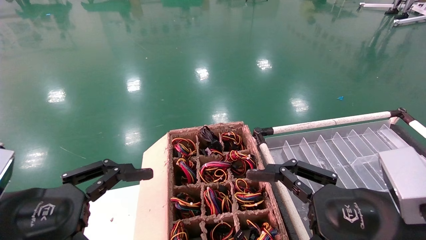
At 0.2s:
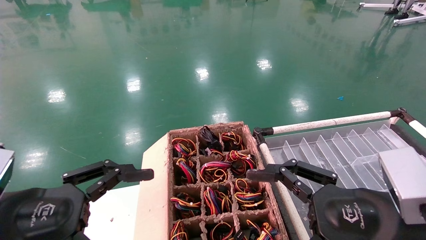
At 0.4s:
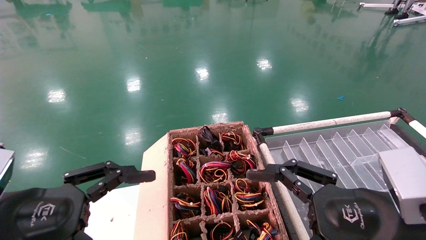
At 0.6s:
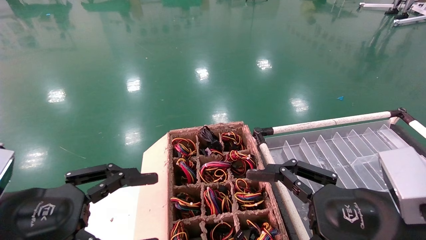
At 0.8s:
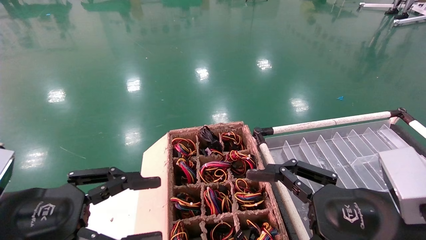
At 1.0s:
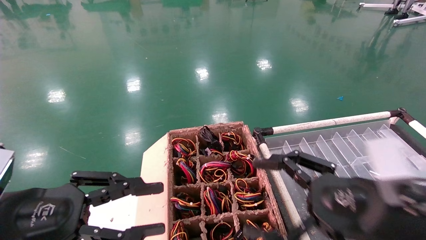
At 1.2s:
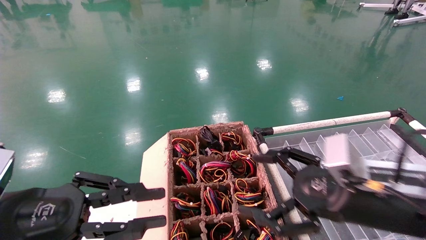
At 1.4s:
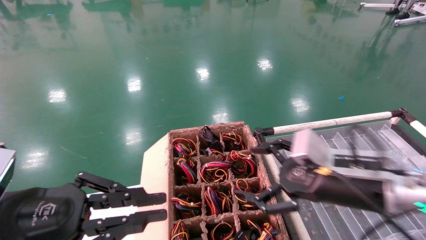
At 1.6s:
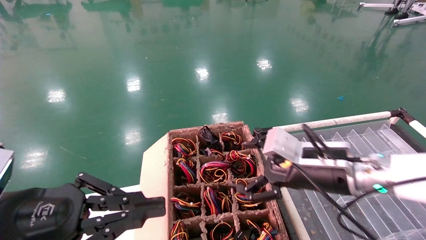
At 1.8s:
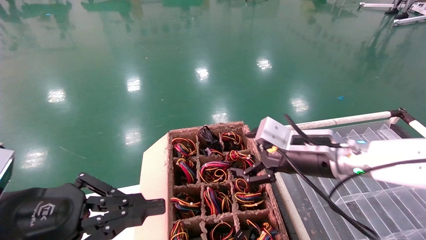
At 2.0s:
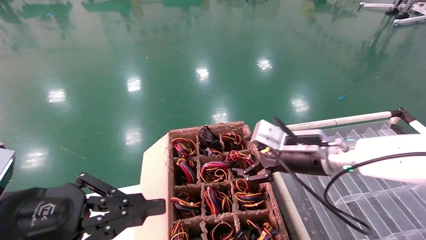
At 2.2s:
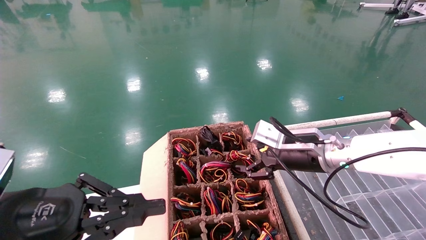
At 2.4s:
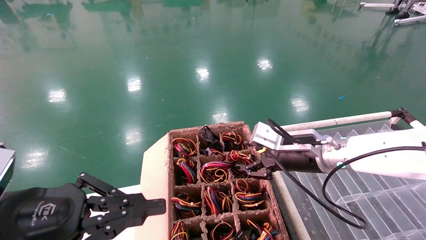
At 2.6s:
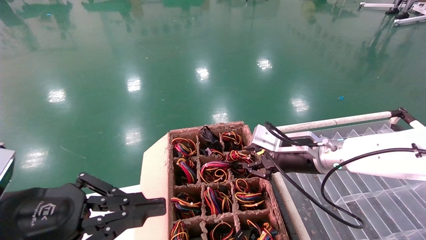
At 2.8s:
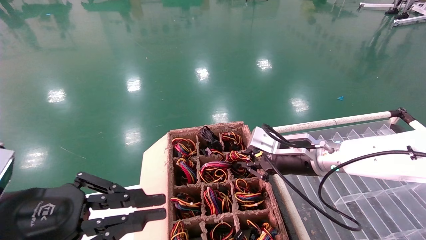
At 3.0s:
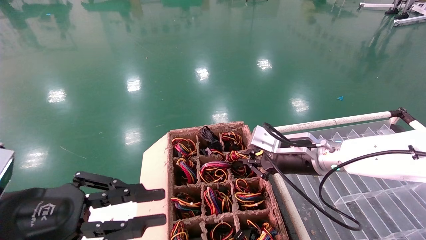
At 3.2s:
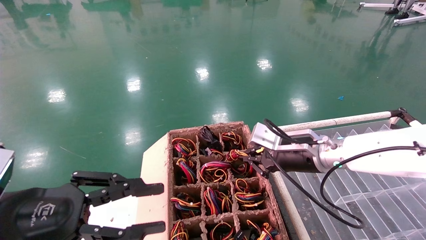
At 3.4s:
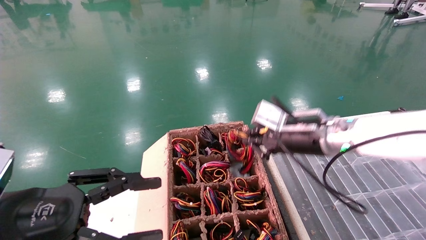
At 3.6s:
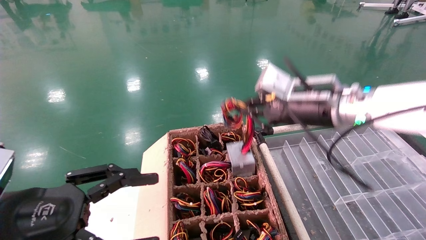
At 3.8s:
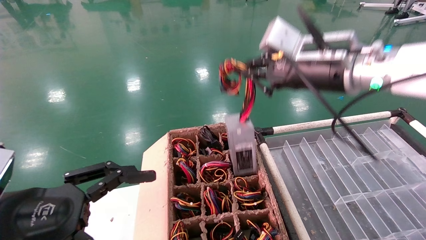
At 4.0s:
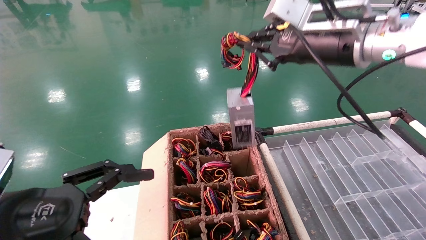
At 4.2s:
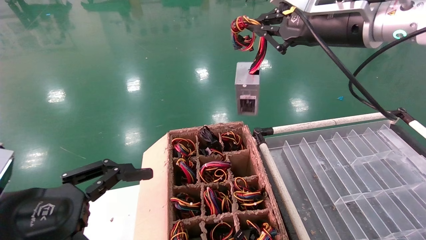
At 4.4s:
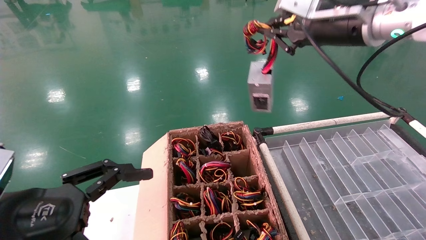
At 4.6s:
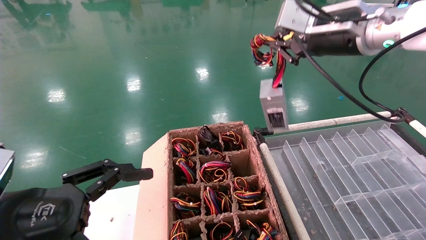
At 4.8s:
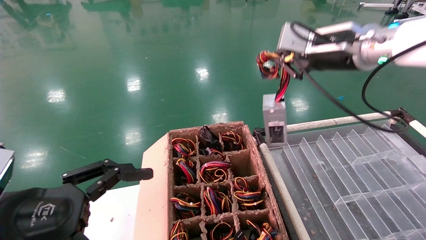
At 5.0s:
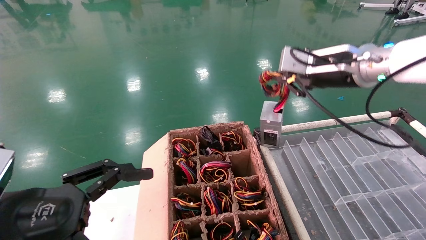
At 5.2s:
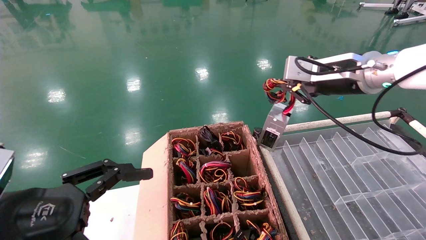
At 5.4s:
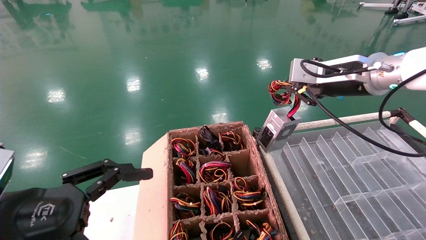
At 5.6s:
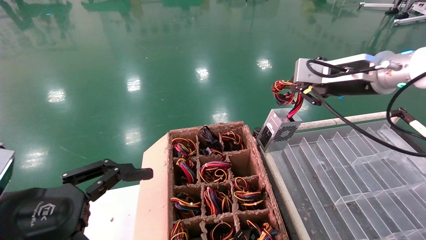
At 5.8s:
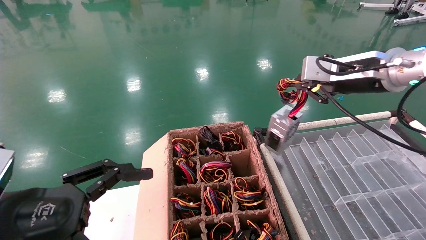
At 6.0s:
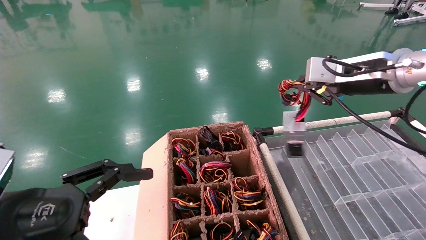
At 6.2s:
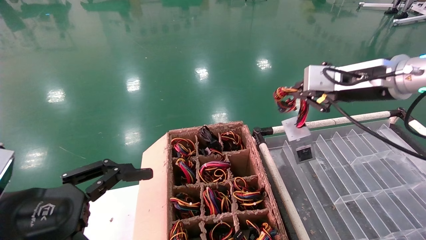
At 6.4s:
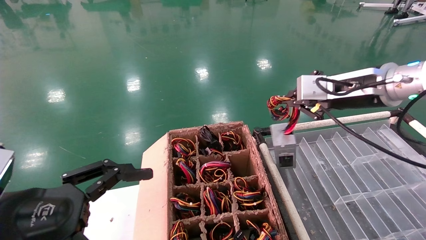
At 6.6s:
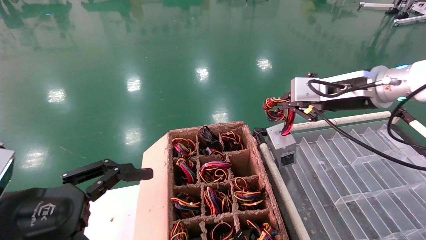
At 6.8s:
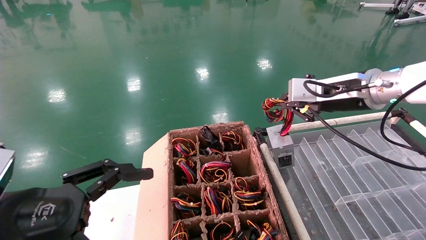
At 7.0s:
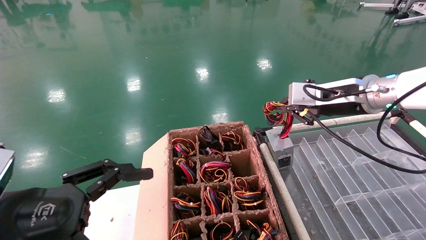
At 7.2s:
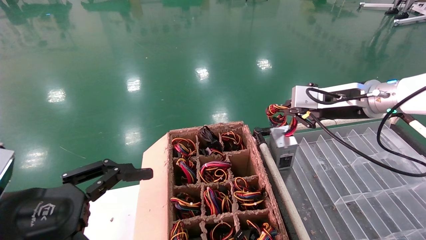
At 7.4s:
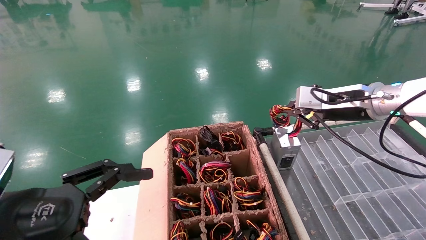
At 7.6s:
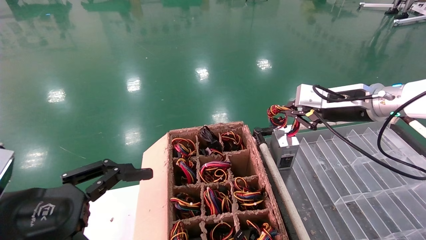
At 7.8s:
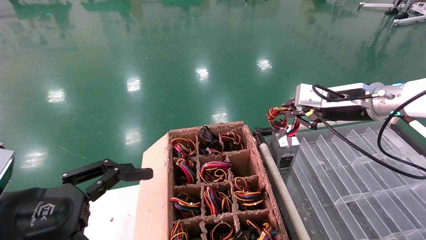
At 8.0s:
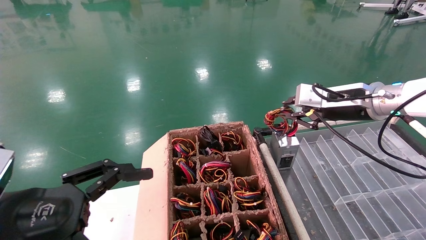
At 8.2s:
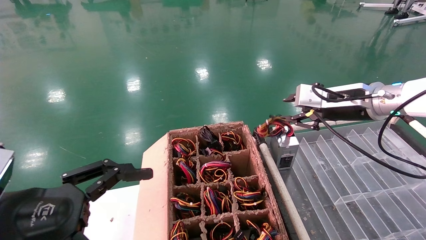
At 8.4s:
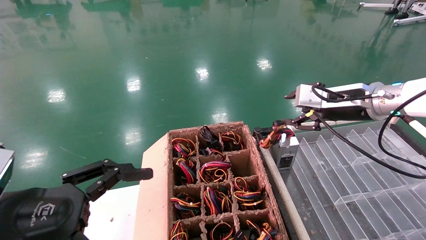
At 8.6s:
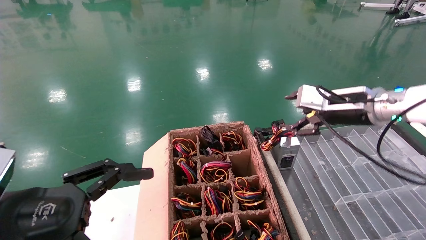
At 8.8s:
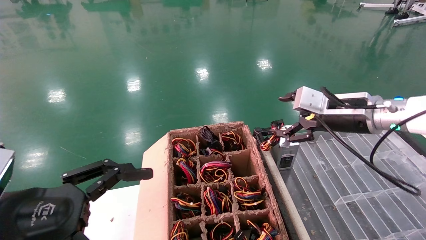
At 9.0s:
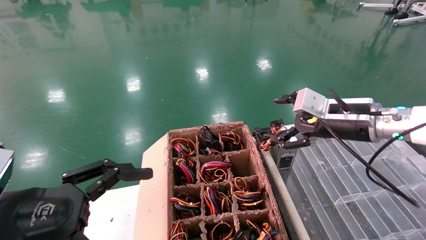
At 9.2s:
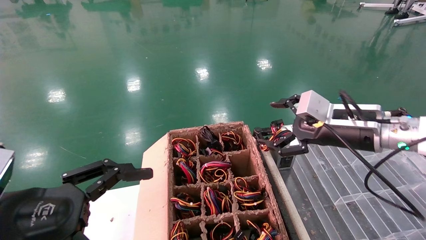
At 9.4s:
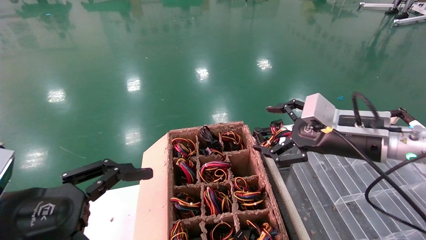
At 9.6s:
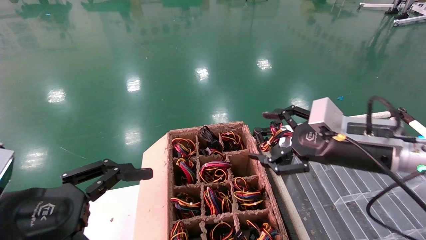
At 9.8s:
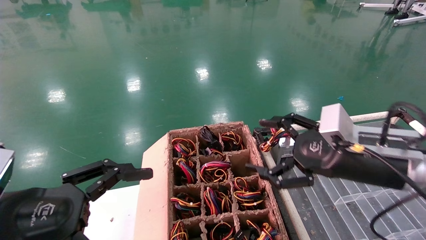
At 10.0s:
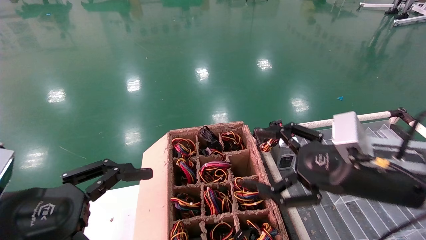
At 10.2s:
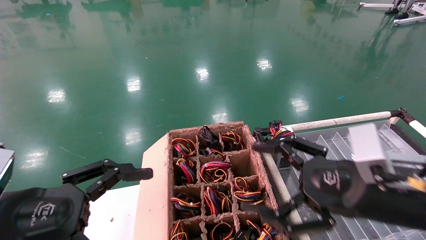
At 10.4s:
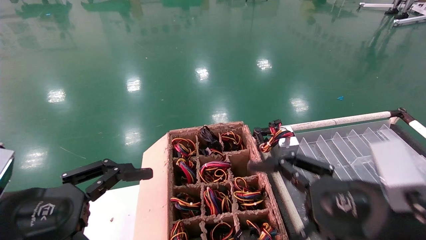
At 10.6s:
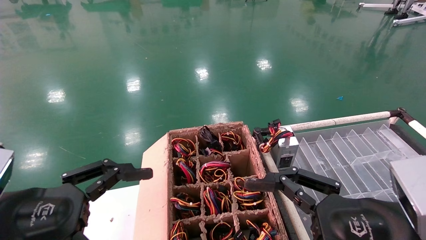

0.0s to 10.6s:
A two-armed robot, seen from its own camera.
Step, 1.0s to 3.6s: Grab and lift the power supply from the large box.
Step, 3.8s to 8.0s: Place the power supply on the operating table.
0.0s to 1.6s: The right gripper goes approximately 15 cm forward; the left gripper closes up.
1.6s to 3.0s: The right gripper moves forward, some 5 cm, and closes its fingers.
3.0s to 4.6s: The right gripper heads upward, covering some 20 cm. Meanwhile the left gripper opens its fingers.
4.6s to 6.0s: The right gripper moves to the right and downward, roughly 10 cm.
6.0s to 7.6s: The right gripper moves downward, approximately 5 cm.
7.6s to 9.0s: The right gripper opens its fingers.
9.0s to 10.6s: The right gripper shifts roughly 20 cm backward.

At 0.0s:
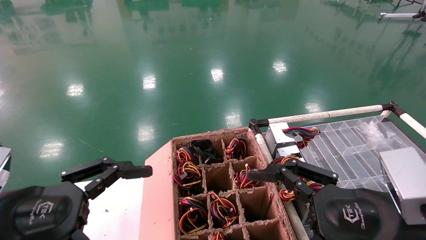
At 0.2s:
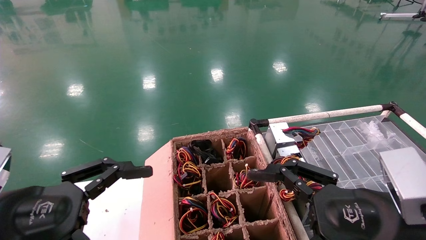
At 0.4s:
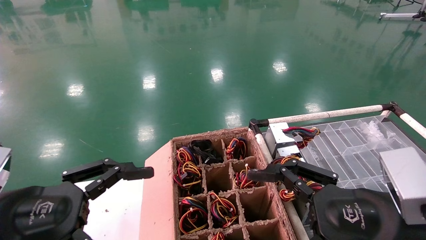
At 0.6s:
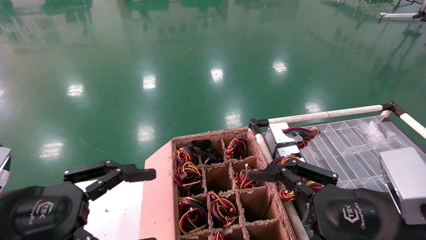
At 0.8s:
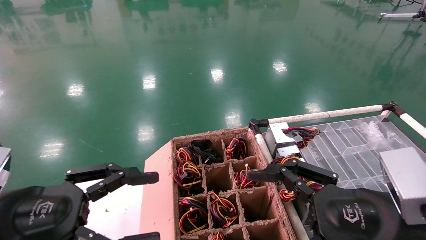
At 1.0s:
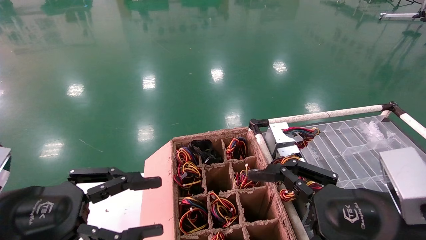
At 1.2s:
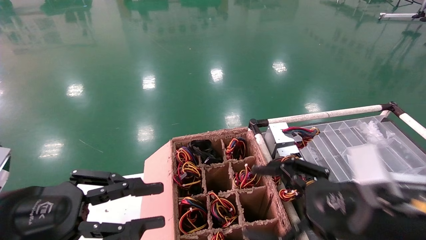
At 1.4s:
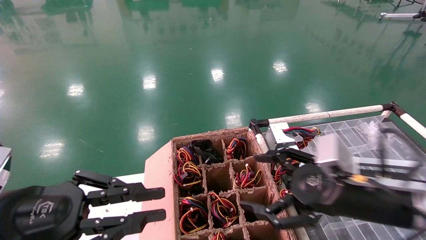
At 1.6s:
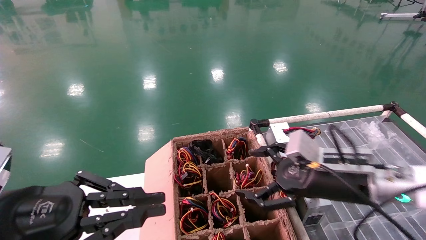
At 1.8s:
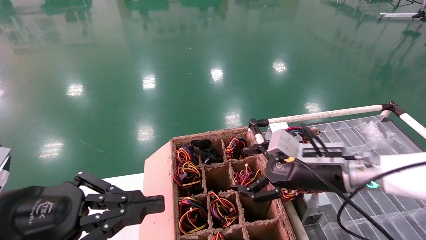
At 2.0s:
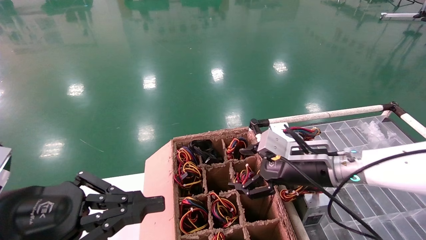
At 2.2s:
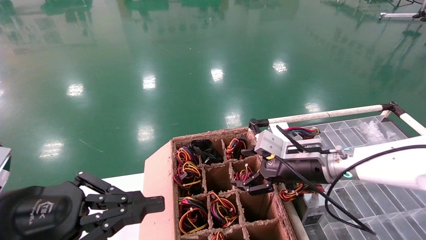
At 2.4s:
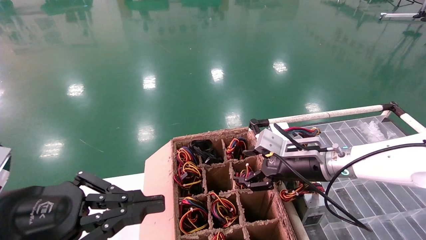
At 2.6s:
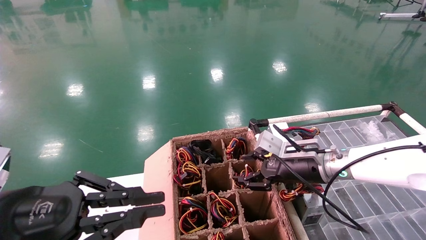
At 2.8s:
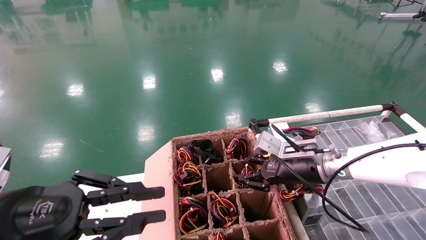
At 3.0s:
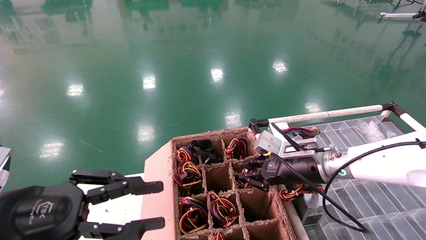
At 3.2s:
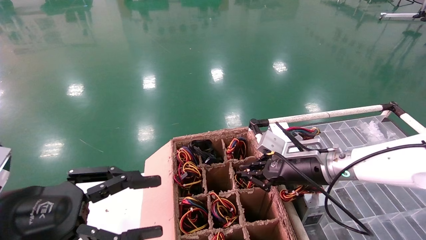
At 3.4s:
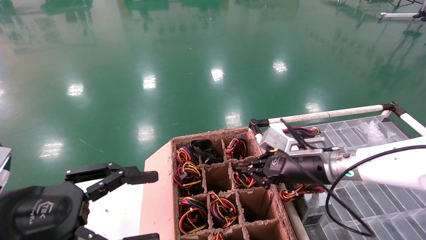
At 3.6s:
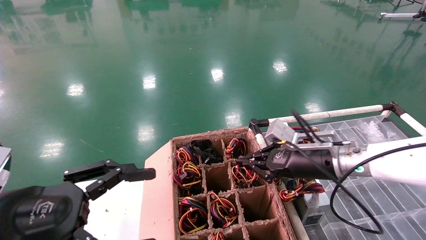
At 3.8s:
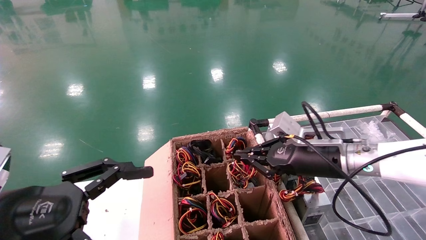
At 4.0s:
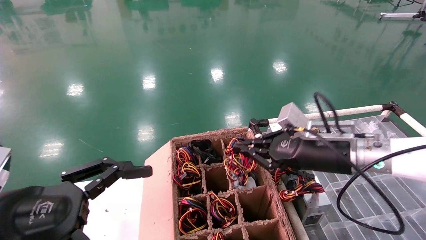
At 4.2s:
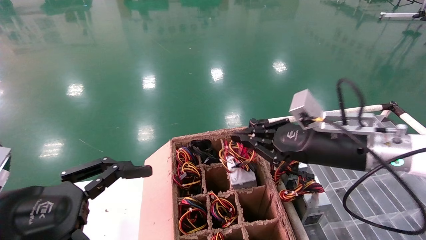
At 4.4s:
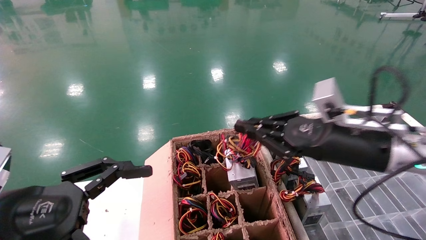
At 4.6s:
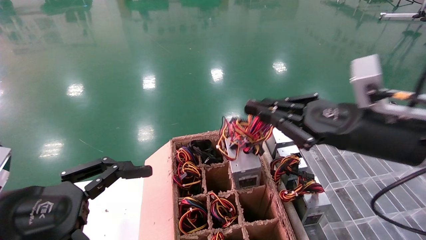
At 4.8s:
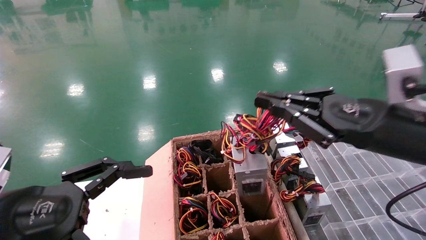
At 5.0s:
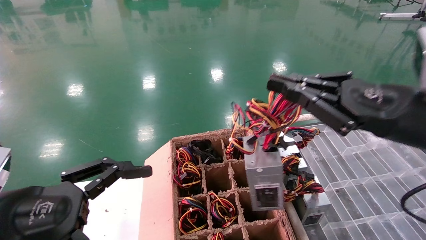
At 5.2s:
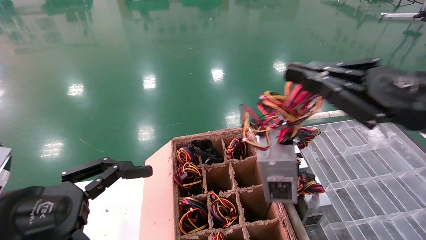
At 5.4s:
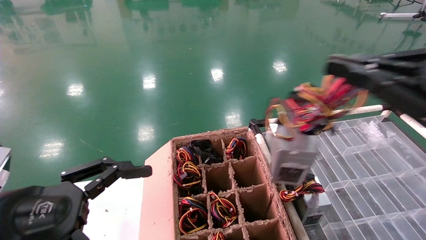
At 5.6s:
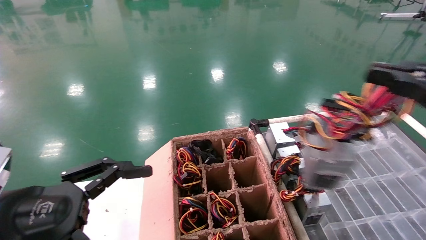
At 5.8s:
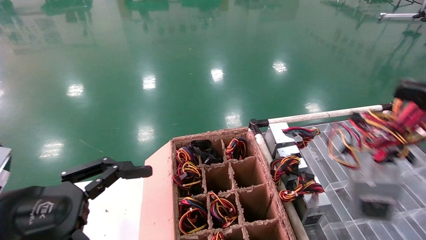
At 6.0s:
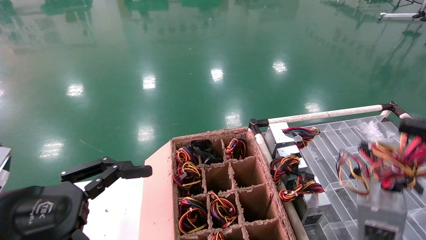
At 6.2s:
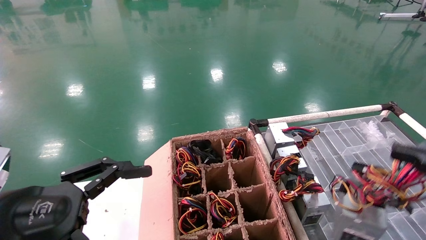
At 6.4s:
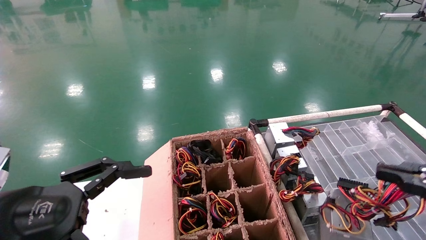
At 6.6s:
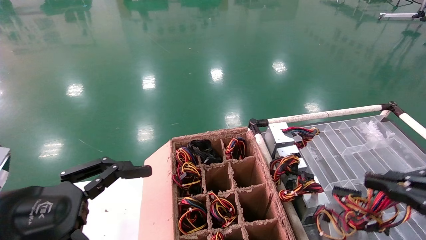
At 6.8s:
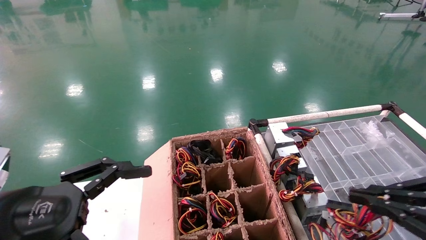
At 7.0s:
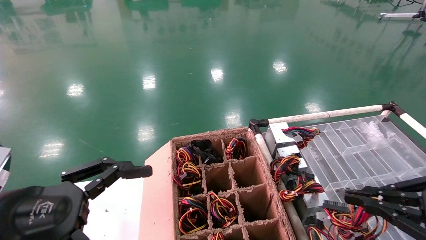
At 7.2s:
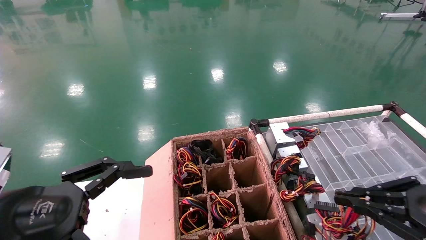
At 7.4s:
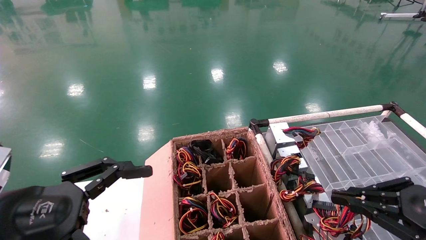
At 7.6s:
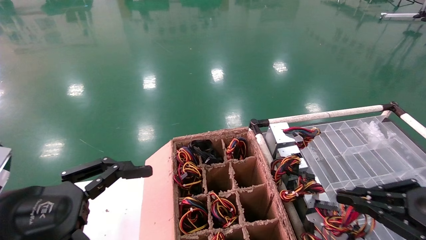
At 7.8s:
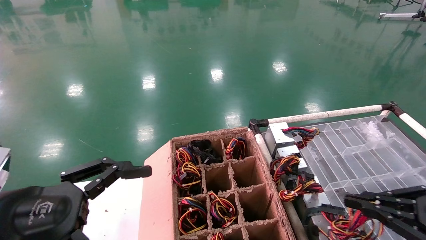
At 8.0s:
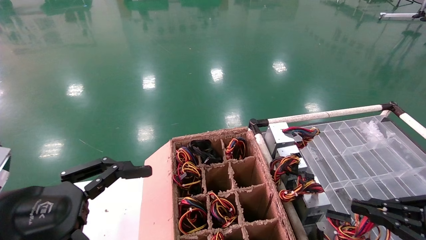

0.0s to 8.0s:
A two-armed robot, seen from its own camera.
Step, 1.8s to 3.4s: Grab and lift the power supply from the large box.
0.0s to 1.6s: The right gripper heads forward, covering roughly 15 cm; the left gripper closes.
1.6s to 3.2s: The right gripper goes approximately 10 cm forward, and closes its fingers.
3.2s to 4.8s: The left gripper opens up, while the right gripper is displaced backward, upward and to the right by some 20 cm.
4.8s to 6.4s: The right gripper heads to the right, backward and downward, covering some 20 cm.
6.4s to 8.0s: The right gripper heads downward and forward, covering about 10 cm.
